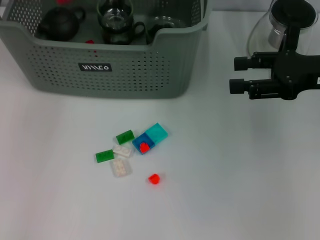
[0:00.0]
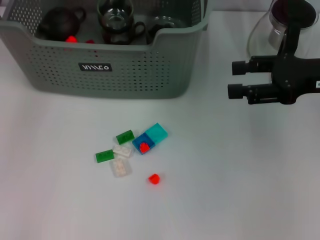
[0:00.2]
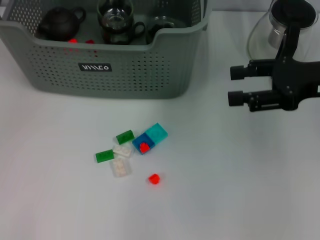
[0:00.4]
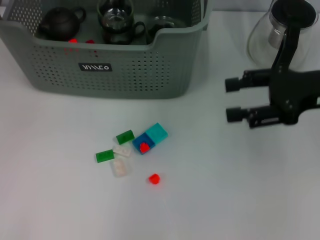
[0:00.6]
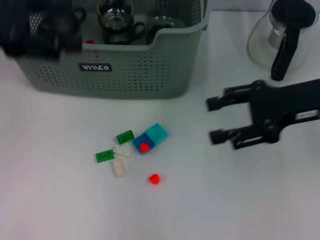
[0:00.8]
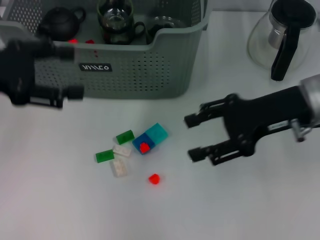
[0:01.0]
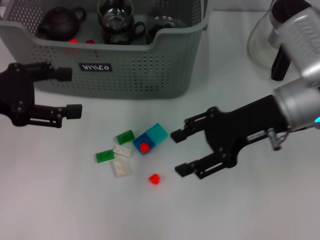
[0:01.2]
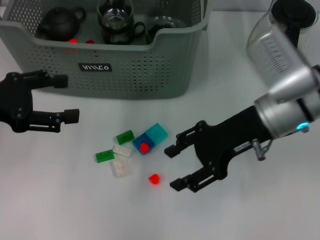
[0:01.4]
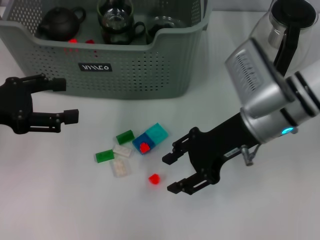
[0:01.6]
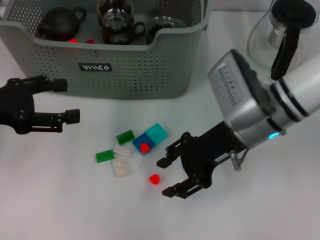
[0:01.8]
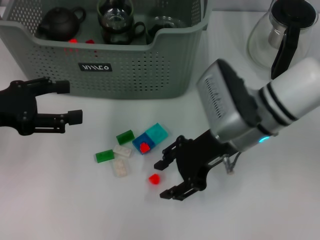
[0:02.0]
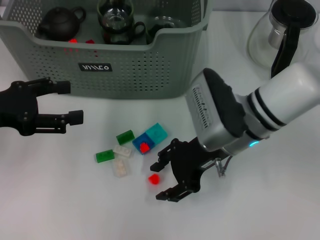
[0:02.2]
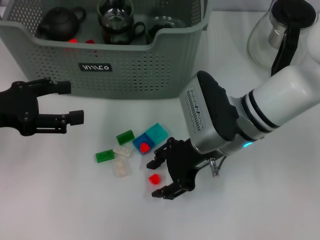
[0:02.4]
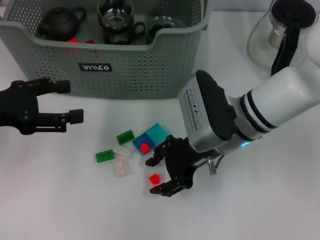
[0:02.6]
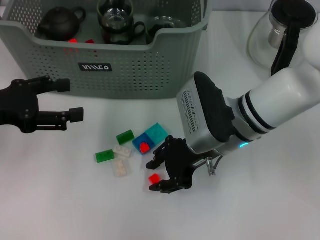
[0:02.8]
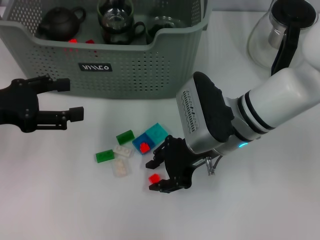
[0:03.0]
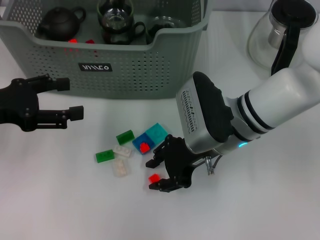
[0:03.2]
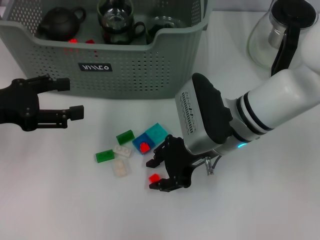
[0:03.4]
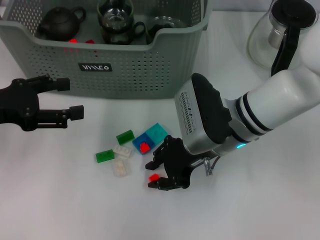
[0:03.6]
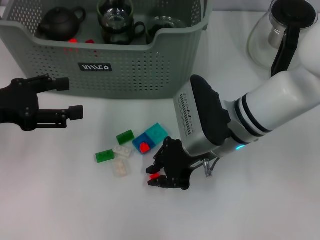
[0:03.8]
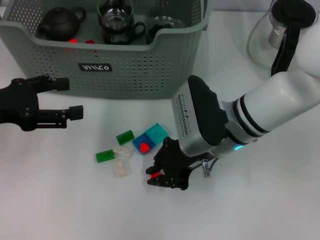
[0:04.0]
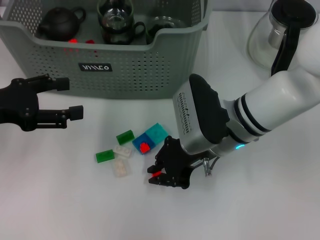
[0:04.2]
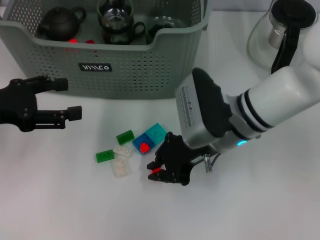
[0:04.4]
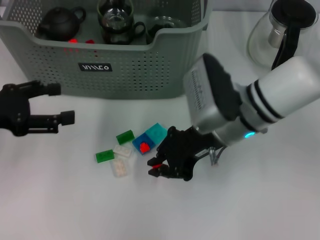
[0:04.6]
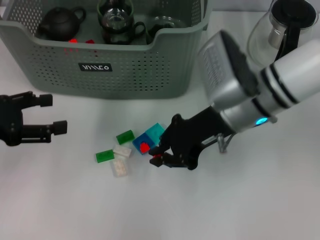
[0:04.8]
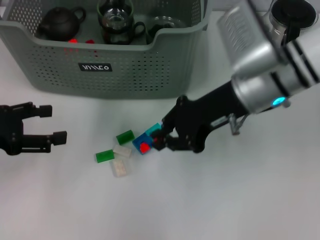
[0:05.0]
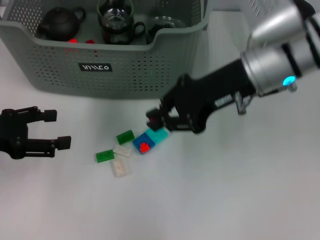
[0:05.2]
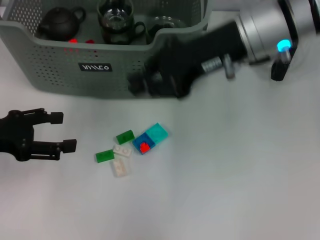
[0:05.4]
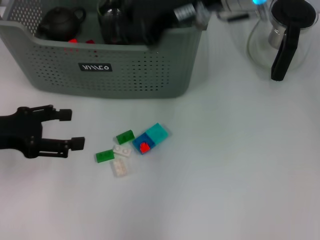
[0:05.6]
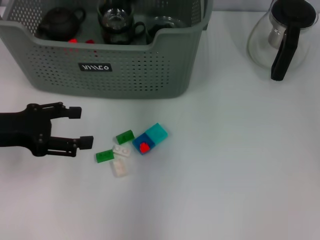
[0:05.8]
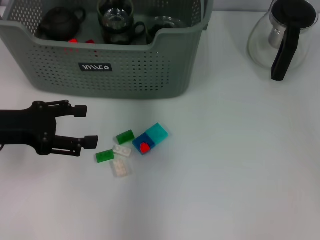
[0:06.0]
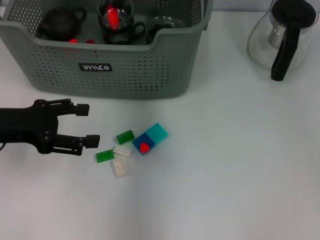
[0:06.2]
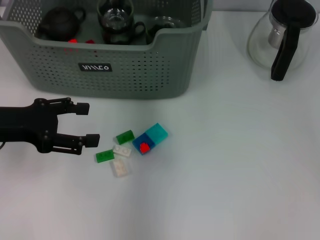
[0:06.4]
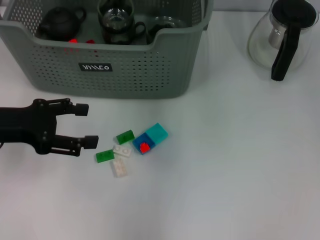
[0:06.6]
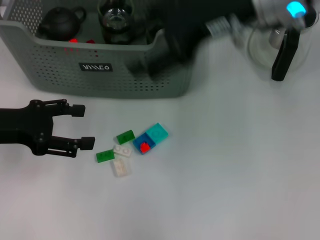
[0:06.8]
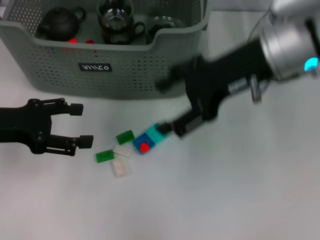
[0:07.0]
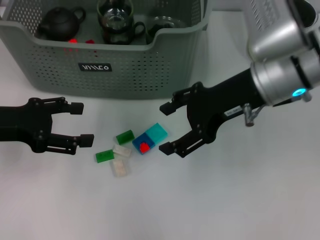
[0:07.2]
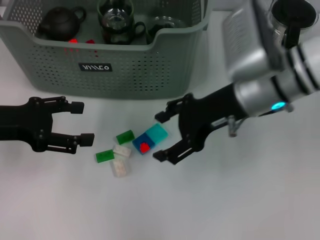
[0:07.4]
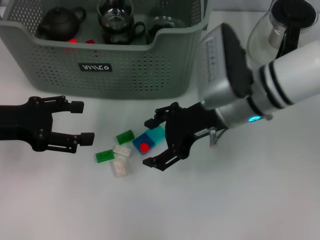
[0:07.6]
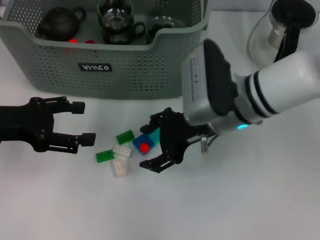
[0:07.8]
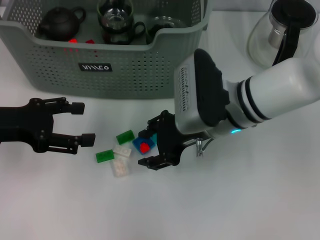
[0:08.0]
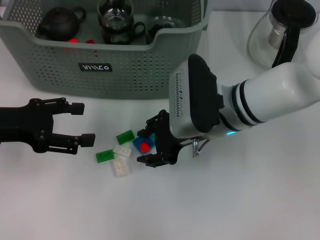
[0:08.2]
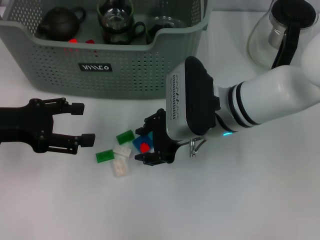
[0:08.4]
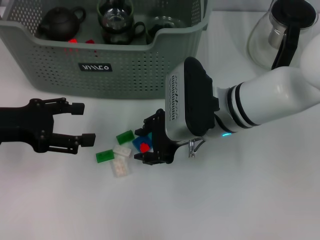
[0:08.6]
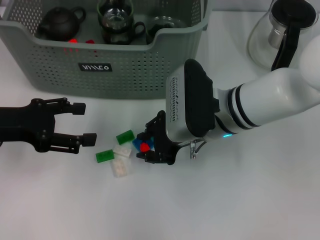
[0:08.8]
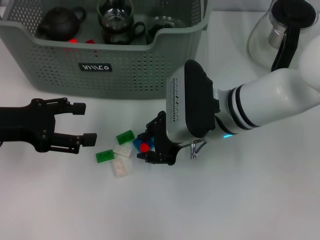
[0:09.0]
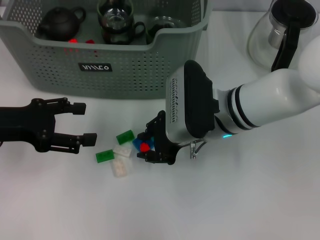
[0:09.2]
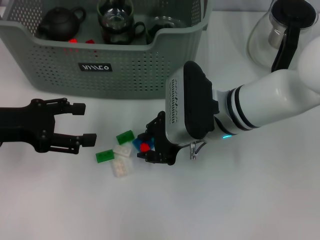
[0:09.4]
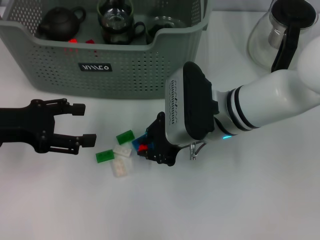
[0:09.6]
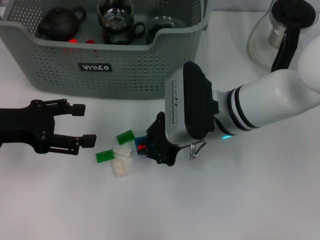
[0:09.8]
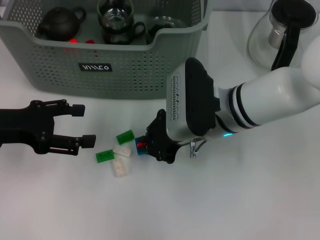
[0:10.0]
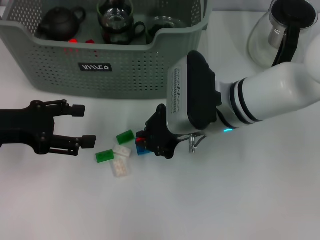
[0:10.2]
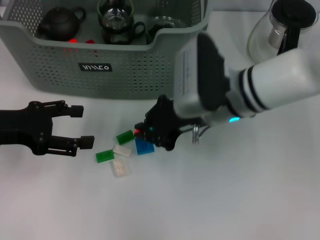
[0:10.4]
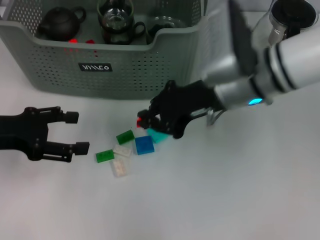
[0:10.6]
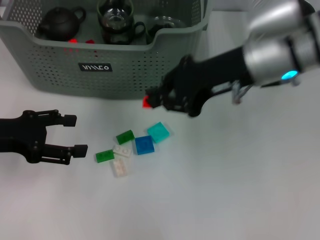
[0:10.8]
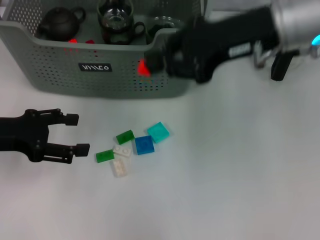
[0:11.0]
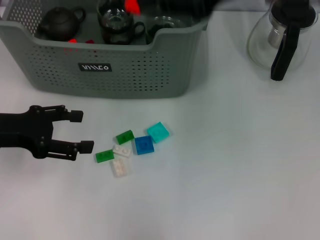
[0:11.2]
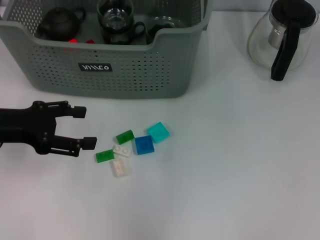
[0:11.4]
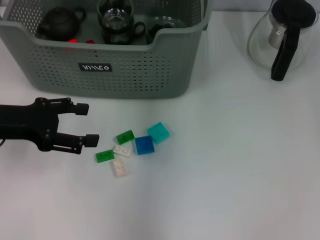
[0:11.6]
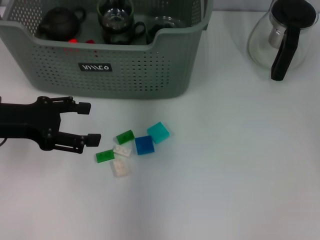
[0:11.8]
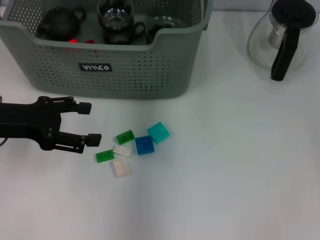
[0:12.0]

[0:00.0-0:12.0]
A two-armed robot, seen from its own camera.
Task of the whole recording: pick up the teacup on the table and place it into the storage bin, pick up the block on the table and place it into the storage bin.
Step, 0:00.4 to 0:03.8: Grasp the orange block with right gripper.
Step, 0:04.2 to 0:06.4: Place the orange block in the storage box with right gripper.
Step, 0:06.8 to 0:09.8: Grasp the orange block with right gripper.
Step, 0:10.0 to 0:11.8: Place the orange block in the storage box with right gripper.
0:00.0 to 0:01.6: The left gripper is displaced backward, downward and to the left by roughly 25 cm, and opens its fingers. The right gripper heads to the left, covering approximately 15 cm.
0:01.6 to 0:03.0: The right gripper ends up about 5 cm from where it was.
0:03.0 to 0:04.4: The right gripper closes up.
0:04.4 to 0:06.0: The right gripper shifts roughly 20 cm upward and forward.
0:06.0 to 0:07.6: The right gripper shifts about 15 cm downward, backward and to the right, and opens.
0:07.6 to 0:09.0: The right gripper closes.
0:09.0 to 0:10.4: There are only small adjustments of the grippers.
0:10.4 to 0:12.0: The right gripper heads upward and forward, covering roughly 20 cm.

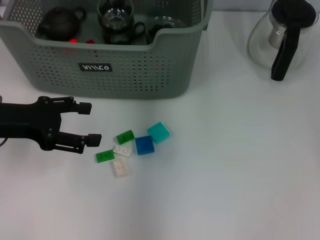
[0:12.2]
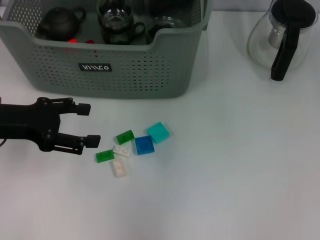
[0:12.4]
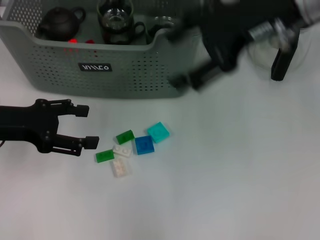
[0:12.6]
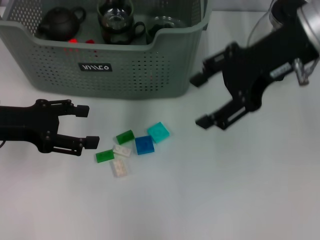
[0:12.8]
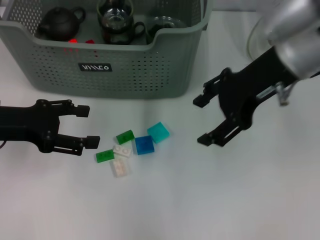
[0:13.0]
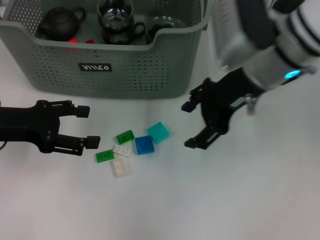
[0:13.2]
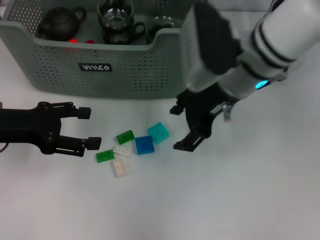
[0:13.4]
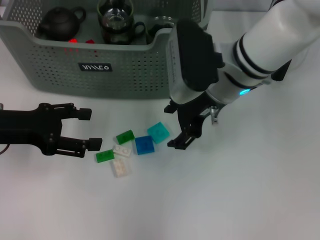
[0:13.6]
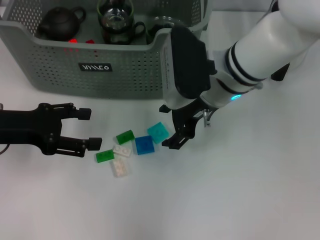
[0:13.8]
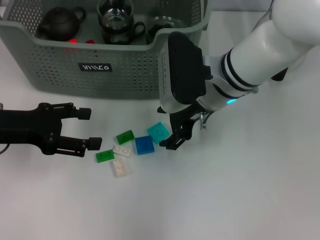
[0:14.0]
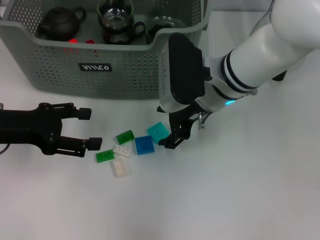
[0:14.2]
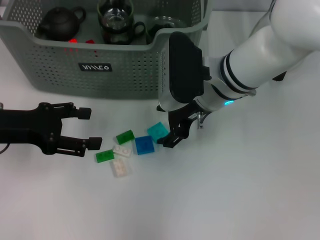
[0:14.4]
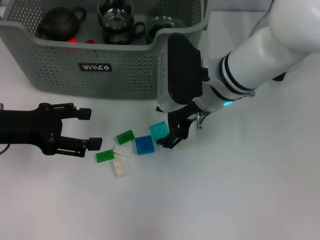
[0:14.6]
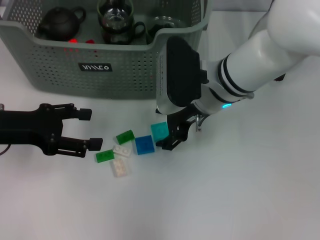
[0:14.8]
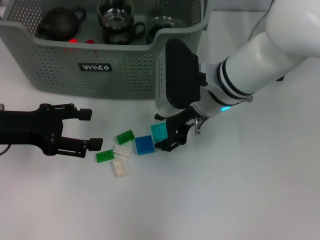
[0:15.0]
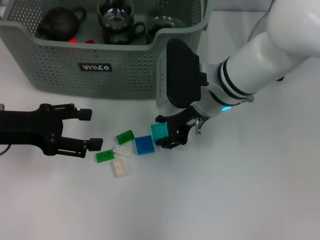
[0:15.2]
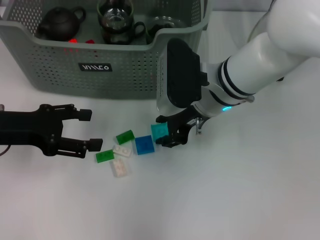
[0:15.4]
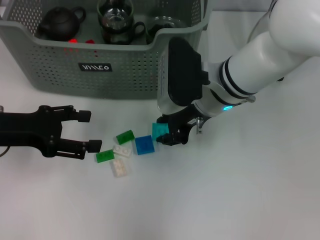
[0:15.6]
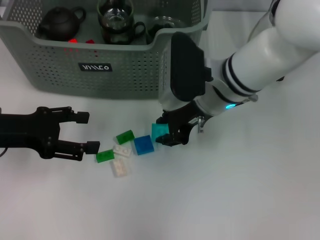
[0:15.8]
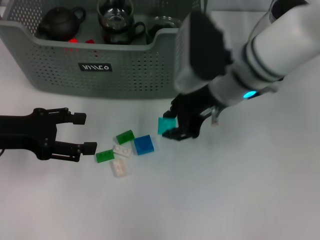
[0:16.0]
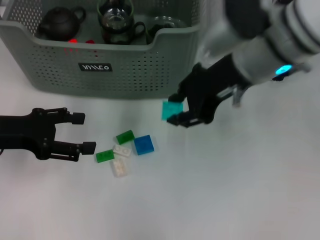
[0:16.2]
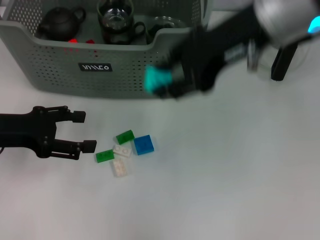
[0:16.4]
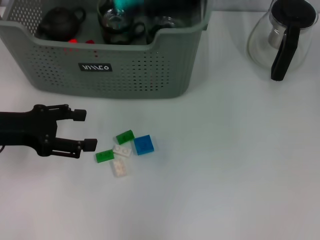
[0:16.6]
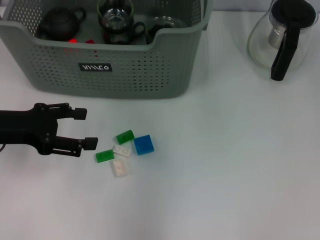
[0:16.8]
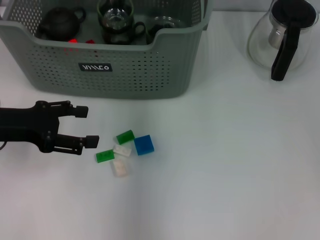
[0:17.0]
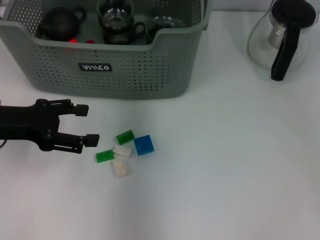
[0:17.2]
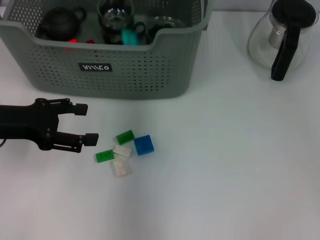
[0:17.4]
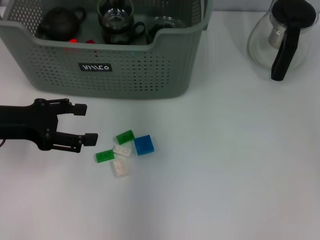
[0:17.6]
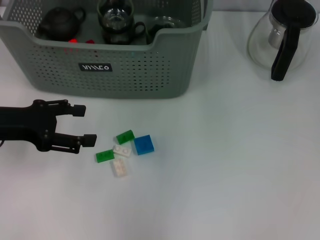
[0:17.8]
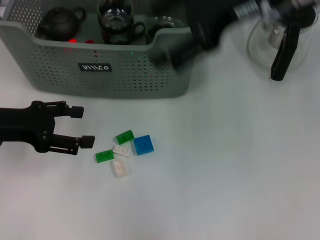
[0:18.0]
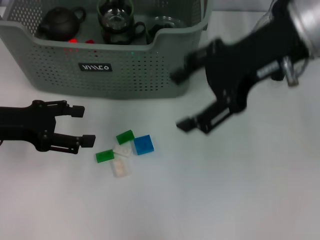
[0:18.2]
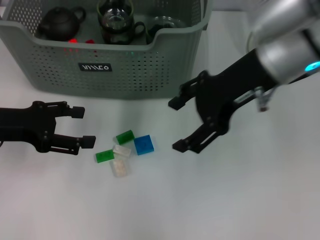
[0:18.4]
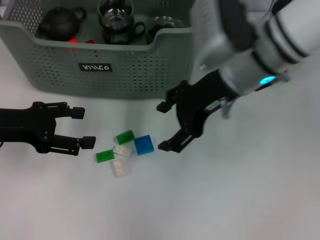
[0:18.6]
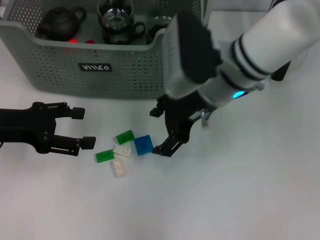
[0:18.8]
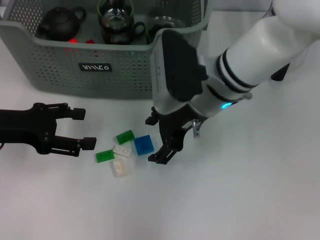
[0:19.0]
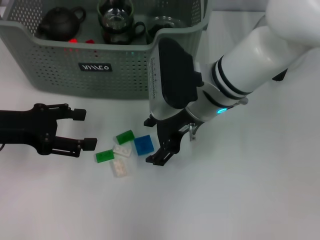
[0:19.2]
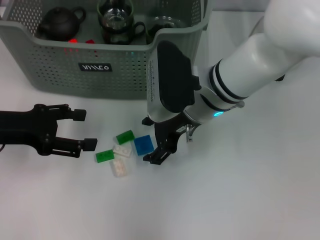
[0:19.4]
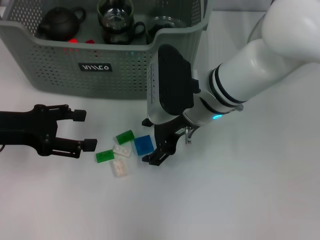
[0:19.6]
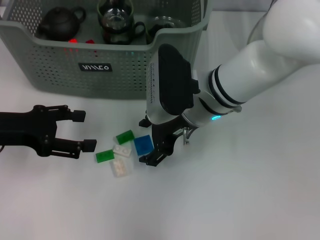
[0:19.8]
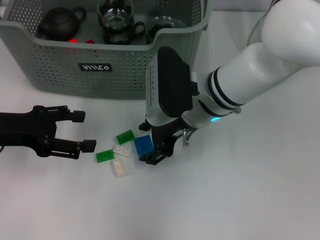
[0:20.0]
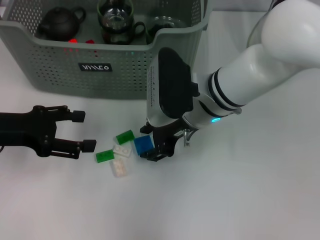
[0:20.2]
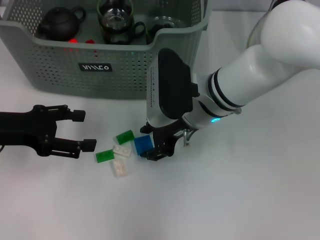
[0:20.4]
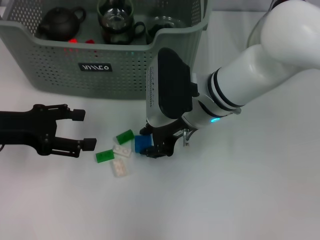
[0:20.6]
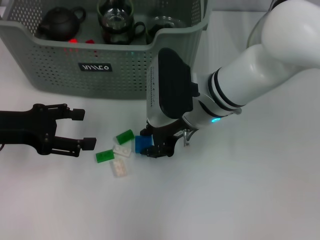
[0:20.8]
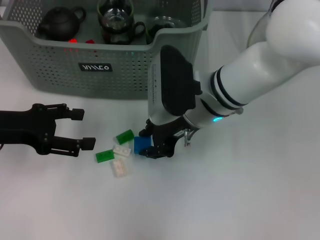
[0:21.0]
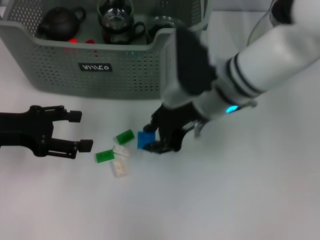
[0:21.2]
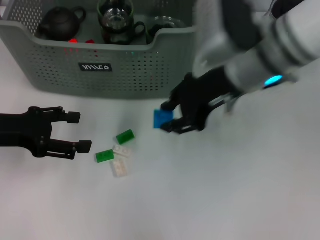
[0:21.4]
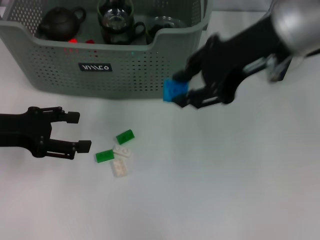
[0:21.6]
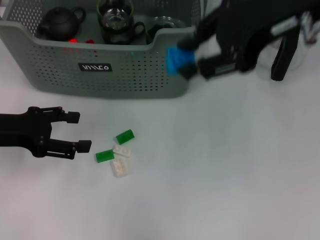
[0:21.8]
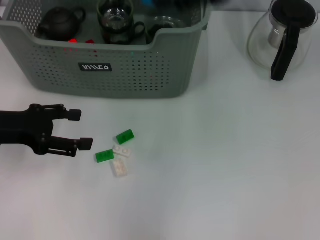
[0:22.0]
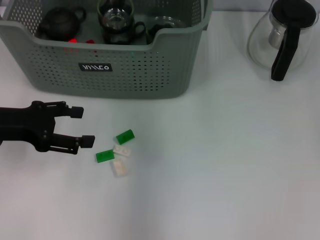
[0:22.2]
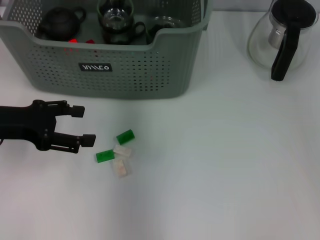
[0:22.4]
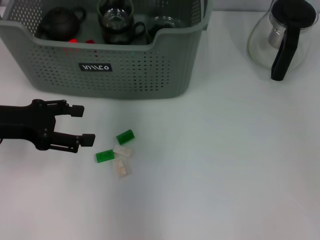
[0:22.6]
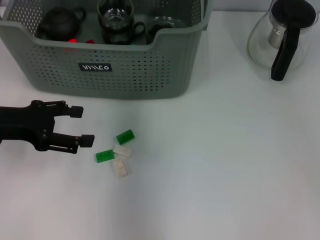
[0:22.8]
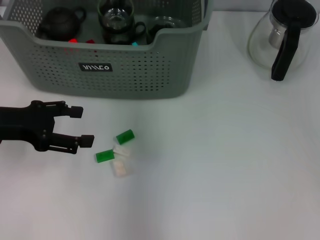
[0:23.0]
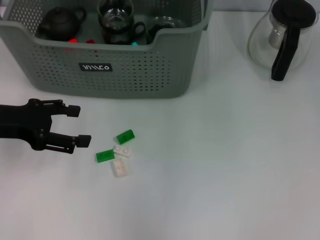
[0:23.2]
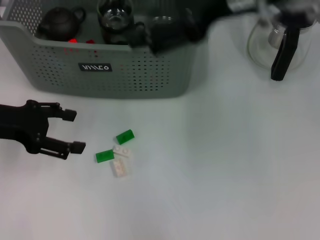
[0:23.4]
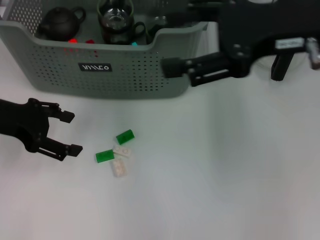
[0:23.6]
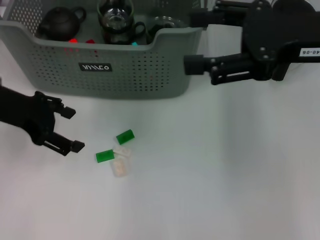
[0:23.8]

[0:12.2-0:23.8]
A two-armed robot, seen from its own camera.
Task of the whole recording: pick up the teacup on the table and place it into the storage bin, pick up the block on the table and place it into the storage bin.
Step, 0:12.2 to 0:15.4: Grasp the light blue block with right gripper.
Step, 0:15.8 to 0:17.4: Place the light blue block in the storage box with right gripper.
Step, 0:17.6 to 0:20.8: Grasp the dark blue block with right gripper.
Step, 0:21.0 to 0:22.8: Place the dark blue block in the storage box with right gripper.
0:12.2 to 0:13.6: The right gripper moves downward and backward, some 15 cm, and opens.
0:13.6 to 0:15.0: The grippers stay close to where they were, moving slightly.
0:15.0 to 0:16.6: The right gripper shifts some 25 cm upward, and closes up.
0:16.6 to 0:18.0: The right gripper shifts roughly 5 cm downward, reaches some 10 cm forward, then returns, and opens.
0:18.0 to 0:19.4: The right gripper is displaced downward and to the left by about 20 cm.
0:19.4 to 0:21.0: The right gripper closes up.
0:21.0 to 0:22.4: The right gripper is displaced upward and forward by approximately 25 cm.
0:22.4 to 0:23.8: The right gripper heads to the right, backward and downward, covering roughly 20 cm, and opens. The left gripper ends up some 5 cm from where it was.
